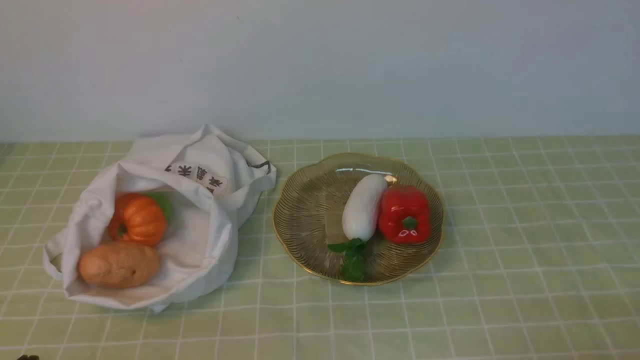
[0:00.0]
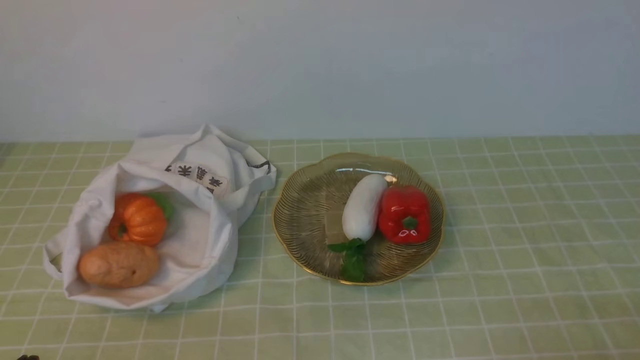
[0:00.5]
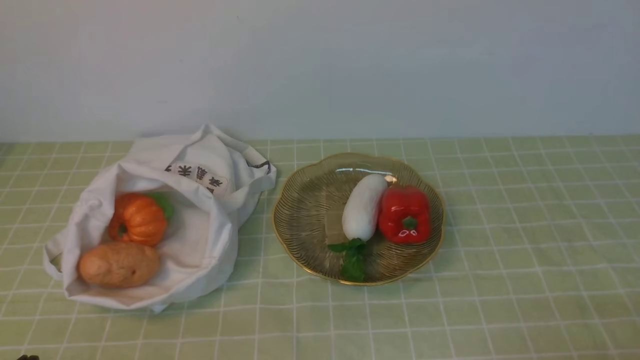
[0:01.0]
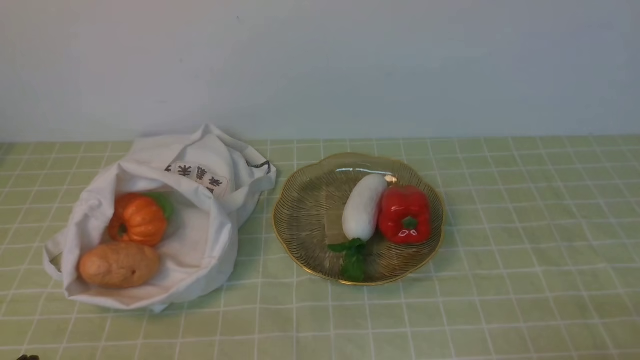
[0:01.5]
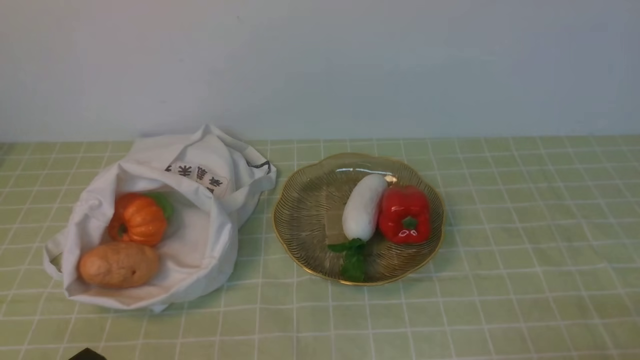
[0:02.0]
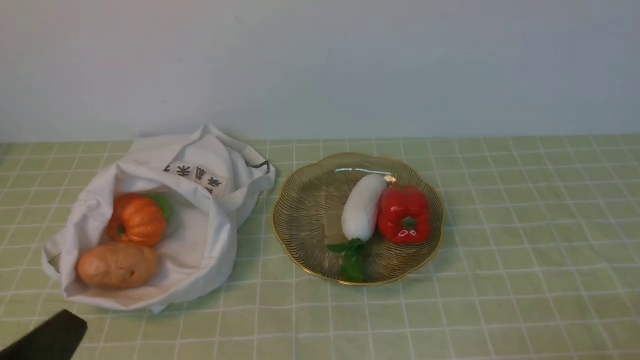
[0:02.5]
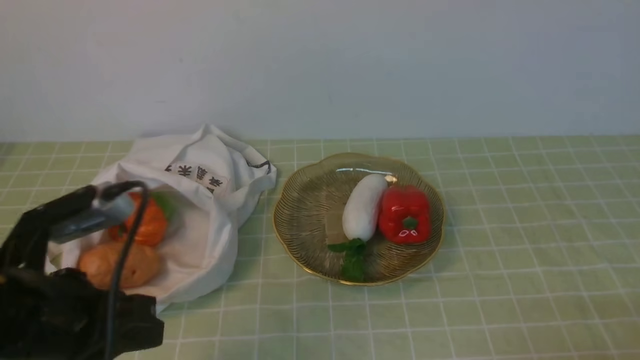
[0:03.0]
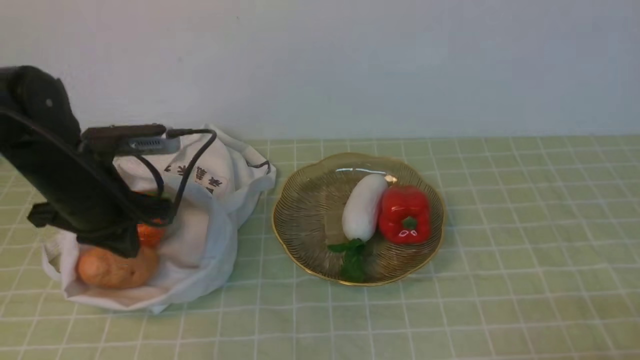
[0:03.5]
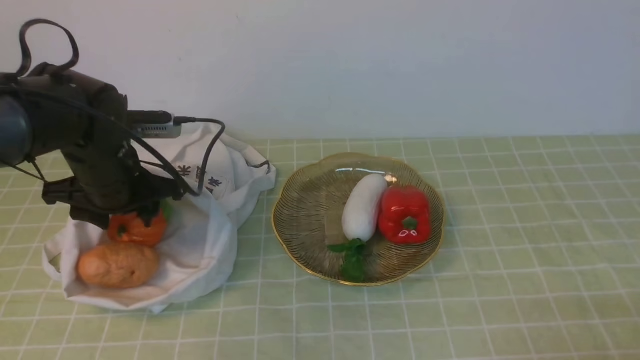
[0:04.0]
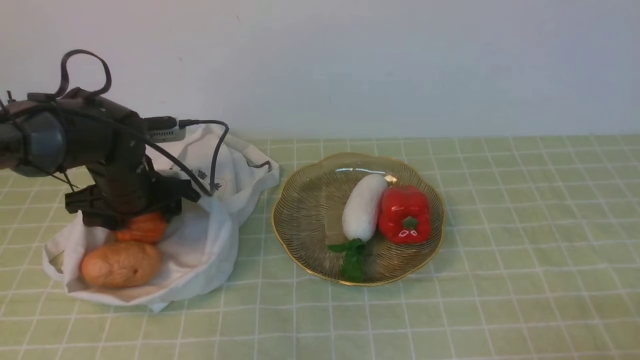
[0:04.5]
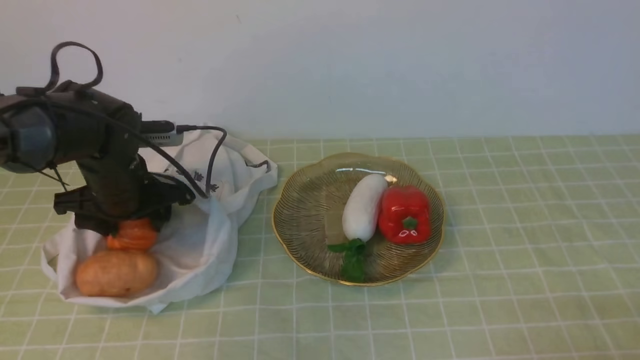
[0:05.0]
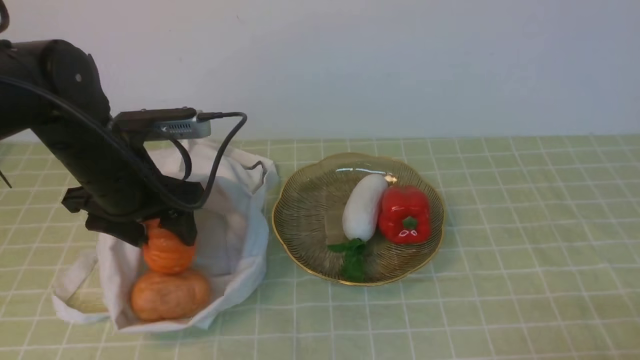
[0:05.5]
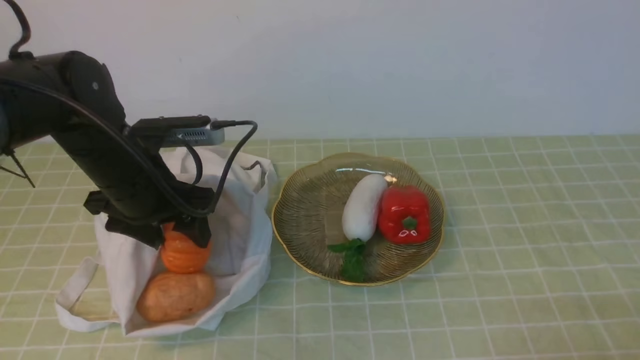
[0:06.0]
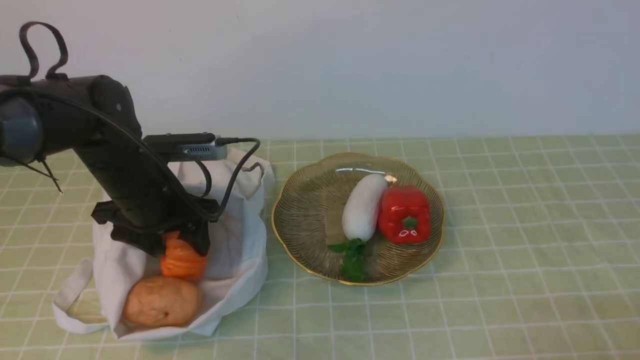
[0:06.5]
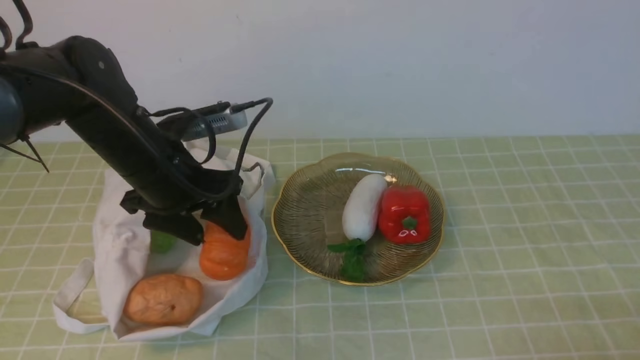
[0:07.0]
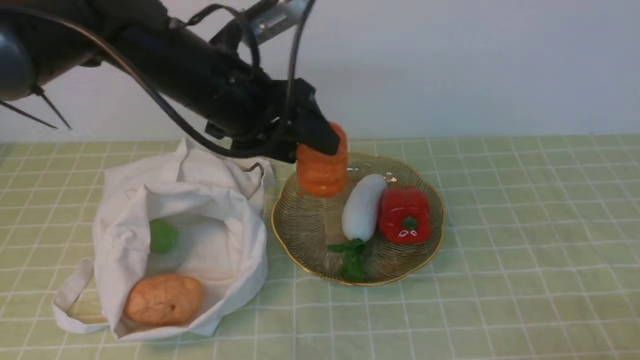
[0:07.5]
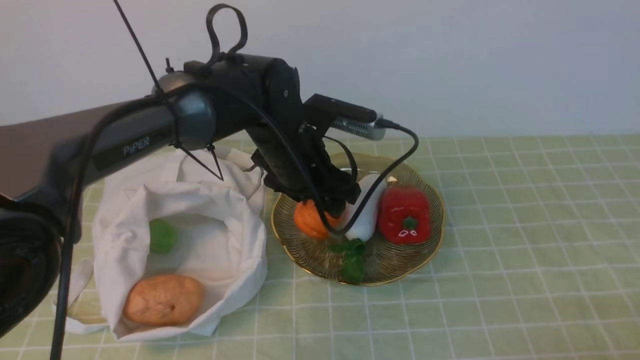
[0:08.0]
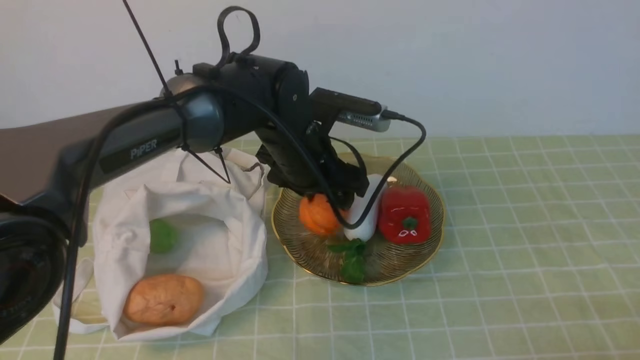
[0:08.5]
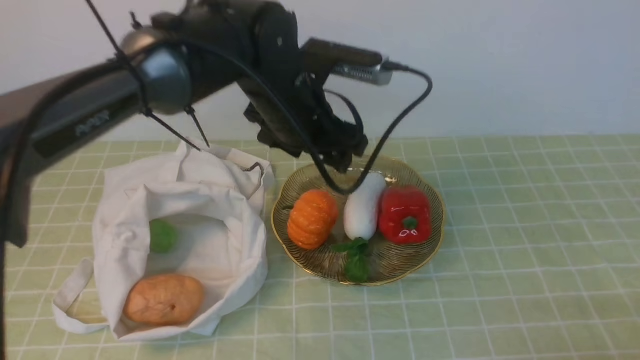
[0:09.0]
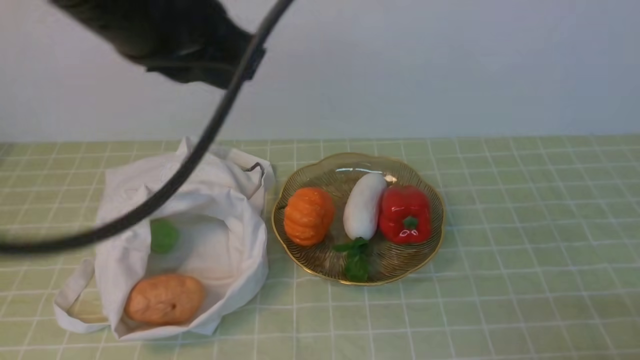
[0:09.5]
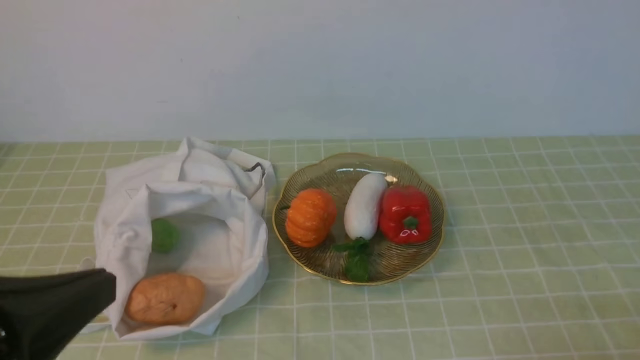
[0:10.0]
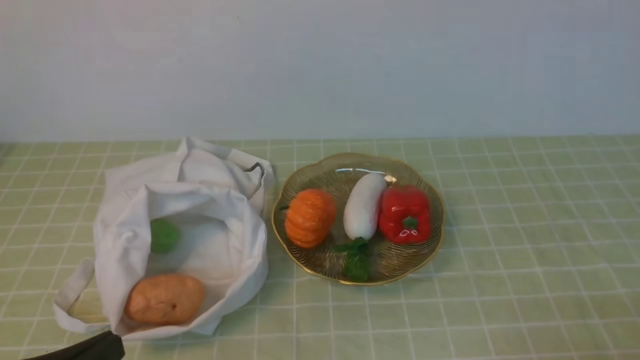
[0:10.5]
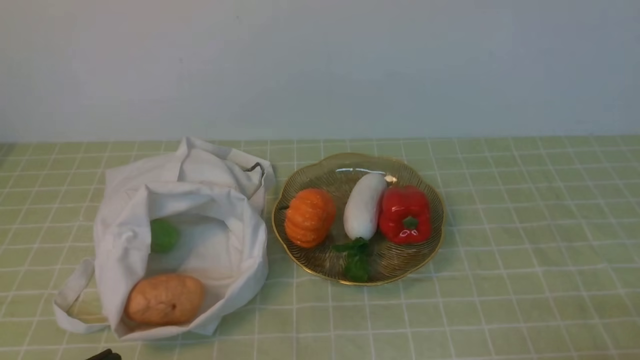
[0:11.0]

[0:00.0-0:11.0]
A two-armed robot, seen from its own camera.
Task of the whole recording: take vegetables from bag on green coffee tablecloth place on plate.
Step, 0:00.0 to 0:04.5: Grasp the pumpkin with left gripper.
Step, 0:05.0 to 0:08.5: Place the pumpkin on the plate with left gripper.
0:02.0 to 0:03.5: The left gripper goes some 25 cm forward.
0:03.5 to 0:05.5: The left gripper opens.
0:05.5 to 0:07.5: The left gripper heads to the right and upward, covering approximately 10 cm.
0:07.5 to 0:09.0: The left gripper moves to the right, roughly 10 cm.
0:09.0 to 0:11.0: The left gripper moves backward and to the left, roughly 35 cm, and closes up.

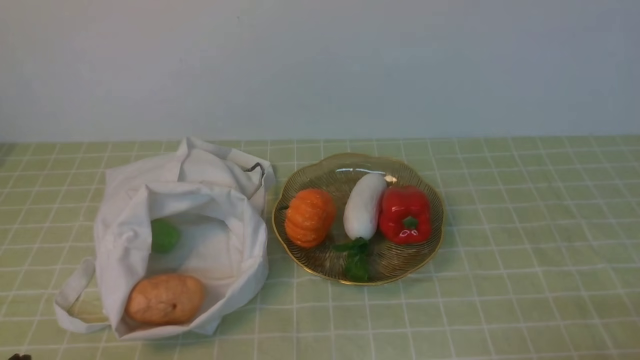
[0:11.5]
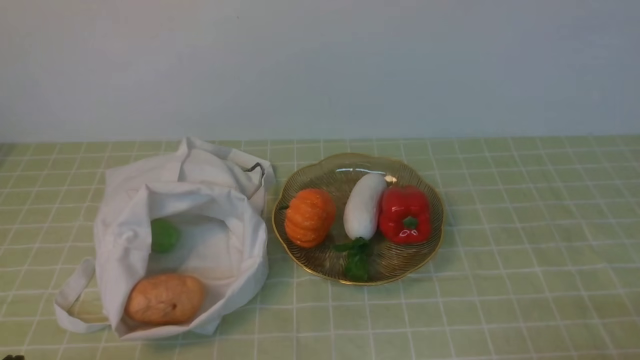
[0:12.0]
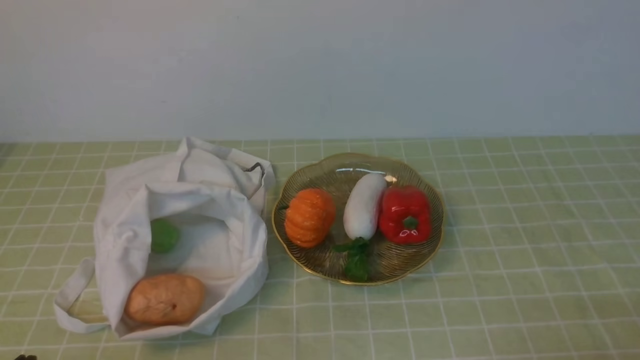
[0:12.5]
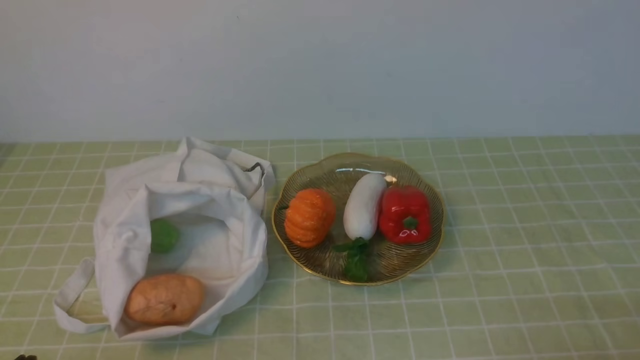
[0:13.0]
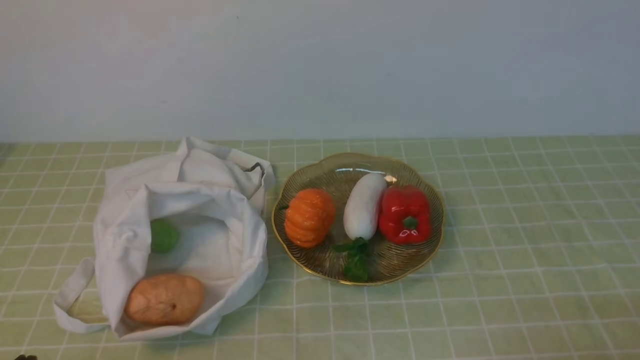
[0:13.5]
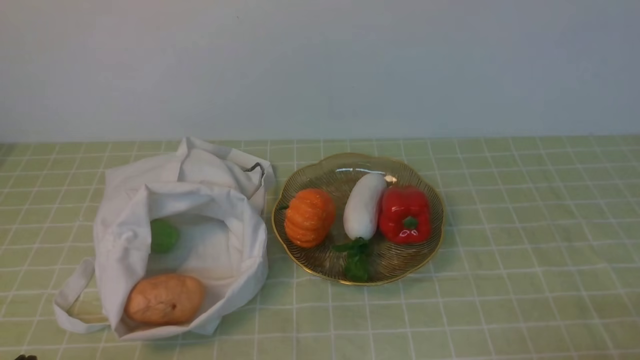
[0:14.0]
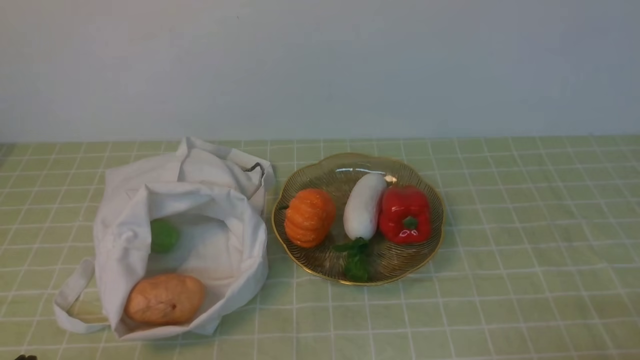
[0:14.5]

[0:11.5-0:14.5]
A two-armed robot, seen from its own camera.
Task of the whole recording: take vegetables from bag on green coffee tablecloth place on plate.
0:13.0 to 0:14.5: Neither gripper changes place.

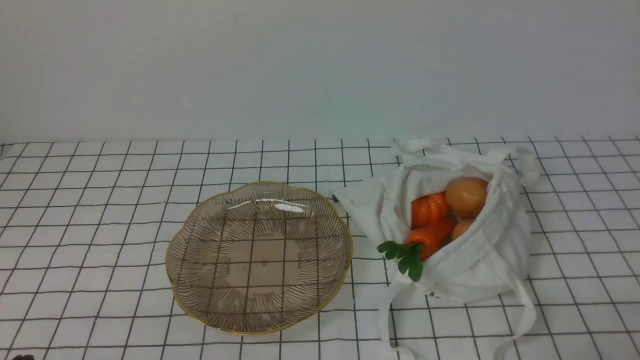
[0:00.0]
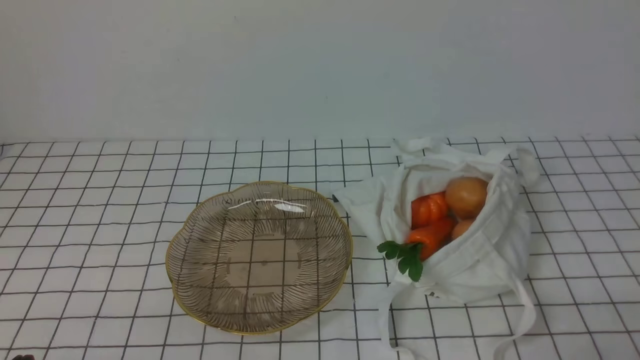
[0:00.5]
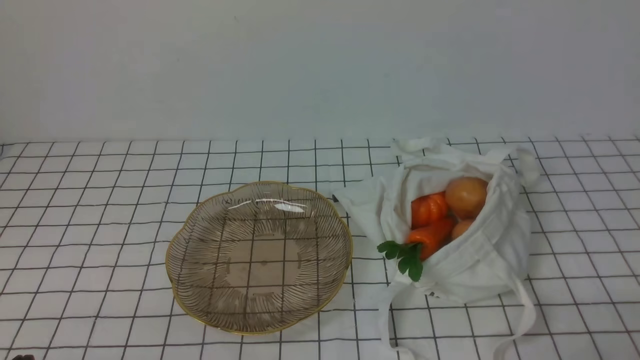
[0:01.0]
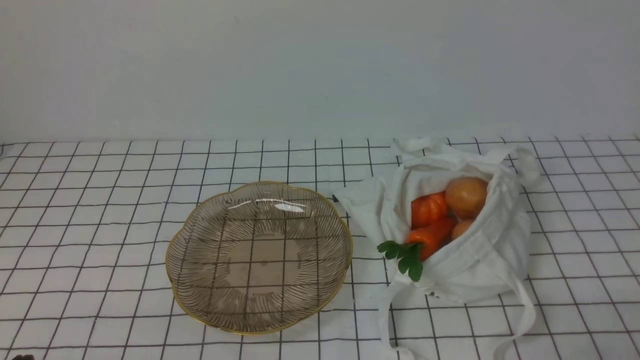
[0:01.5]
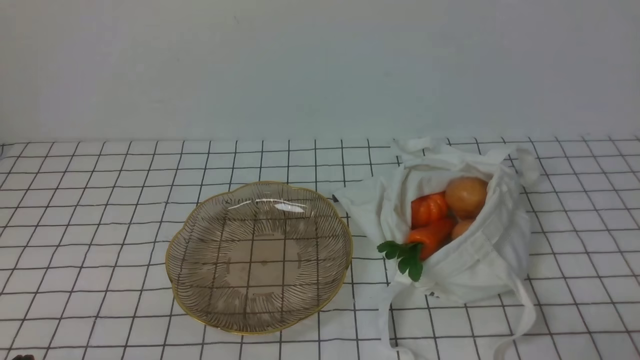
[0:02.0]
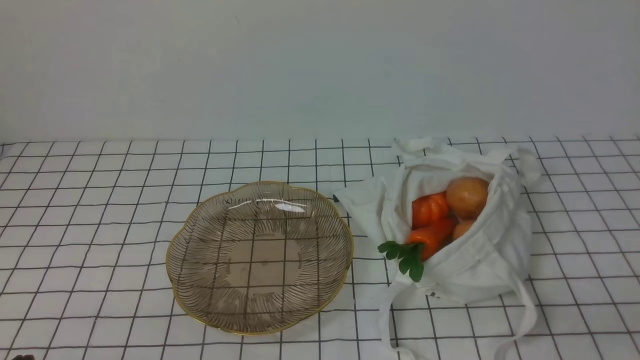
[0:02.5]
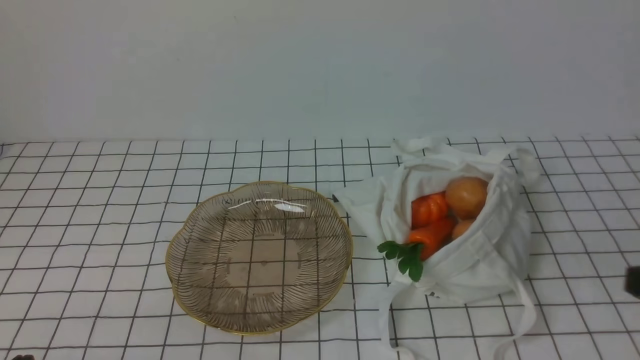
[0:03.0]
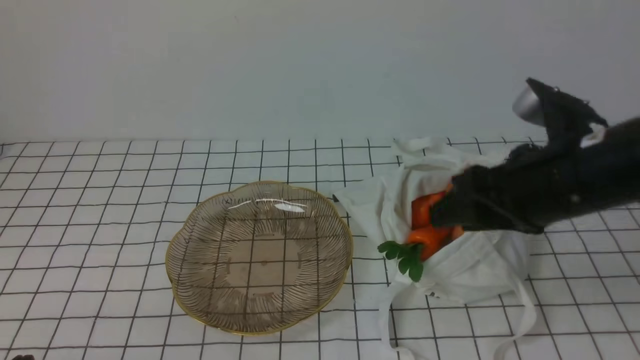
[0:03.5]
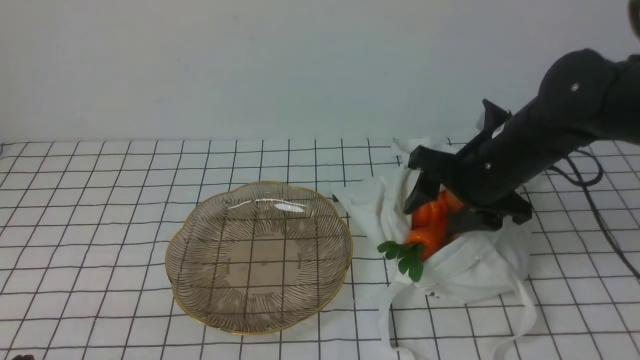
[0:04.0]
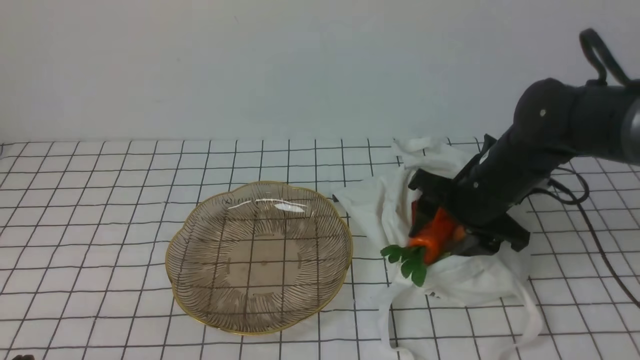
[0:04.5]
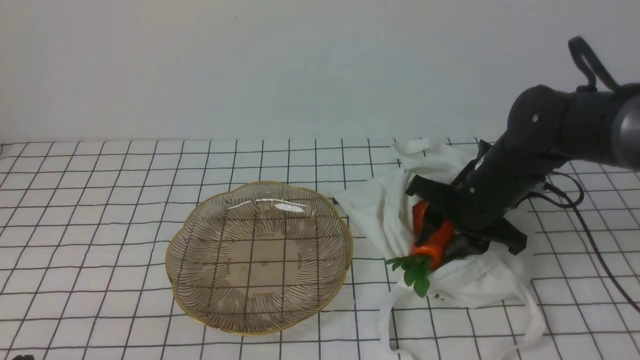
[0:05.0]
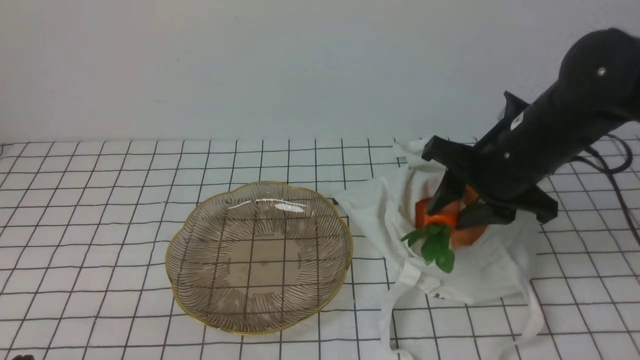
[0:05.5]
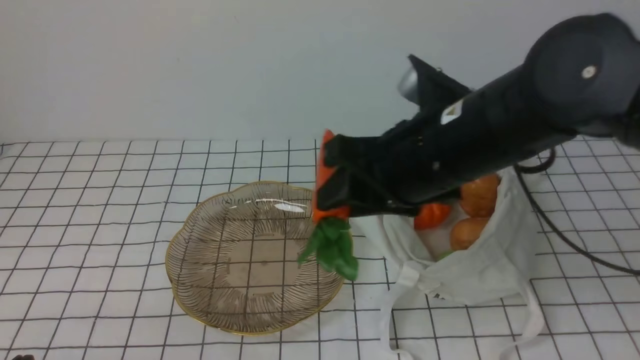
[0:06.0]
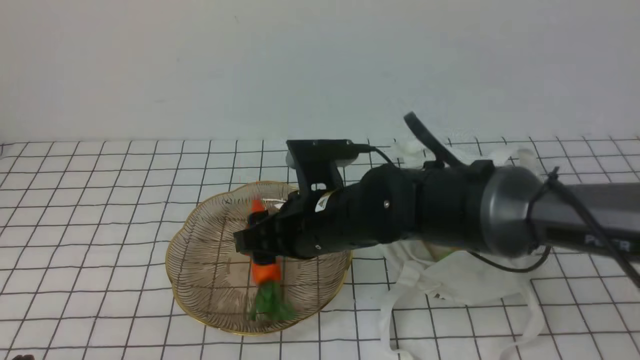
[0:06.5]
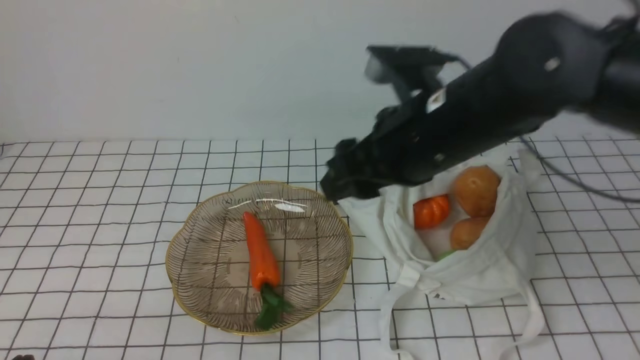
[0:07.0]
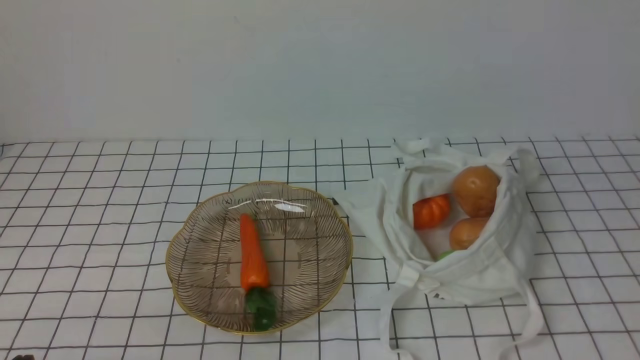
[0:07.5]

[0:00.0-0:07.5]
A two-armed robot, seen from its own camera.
Task of the whole recording: take vegetables from bag on white checkered tablecloth place on plate.
Step, 0:00.0 to 0:04.5: Grasp the carrot with right gripper.
Step, 0:05.0 to 0:06.5: Place the carrot on the plate with right gripper.
0:02.0 to 0:04.0: The right gripper moves forward and to the left, some 30 cm, and opens its fingers.
0:04.0 to 0:05.5: The right gripper closes up.
0:05.5 to 0:07.5: The right gripper goes roughly 25 cm backward and upward, travels to the left and back again, approximately 15 cm each way, and closes its fingers.
